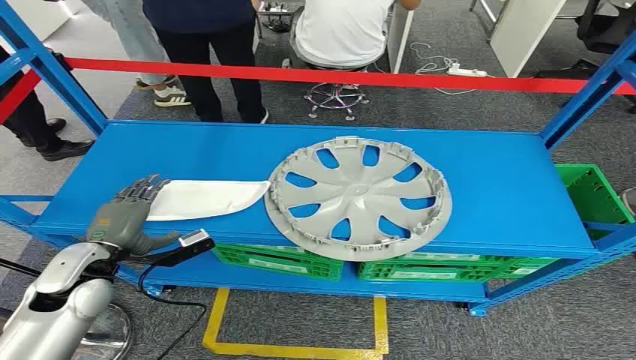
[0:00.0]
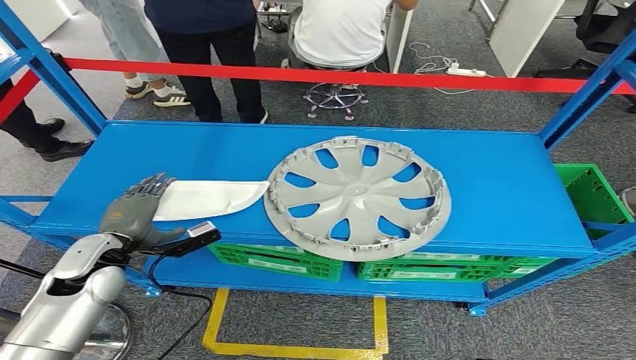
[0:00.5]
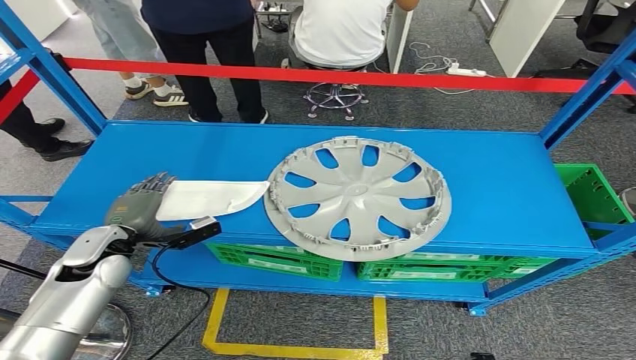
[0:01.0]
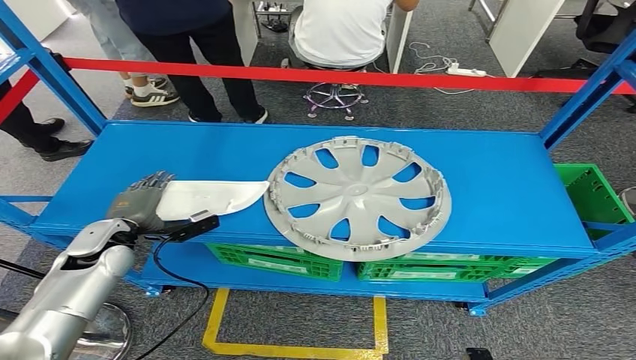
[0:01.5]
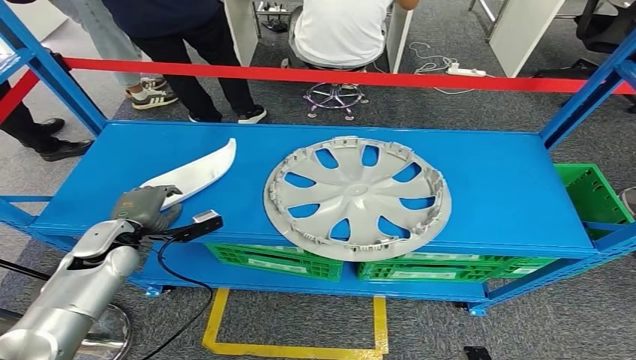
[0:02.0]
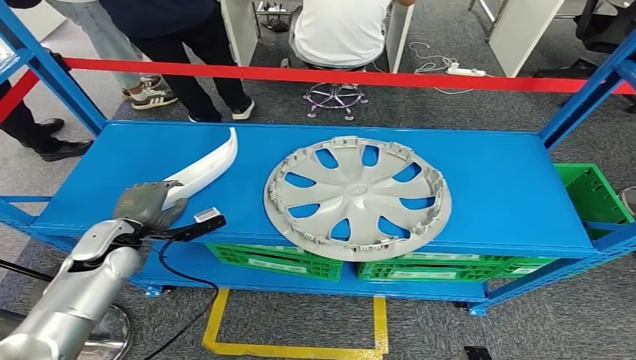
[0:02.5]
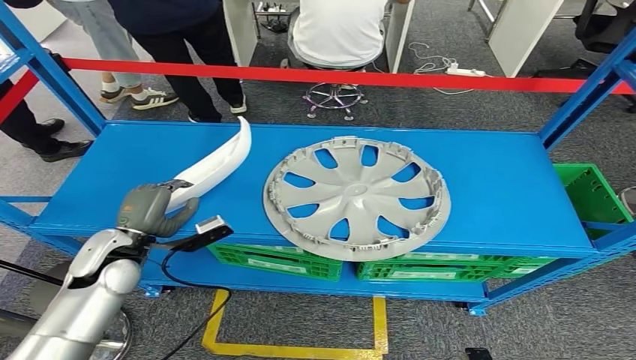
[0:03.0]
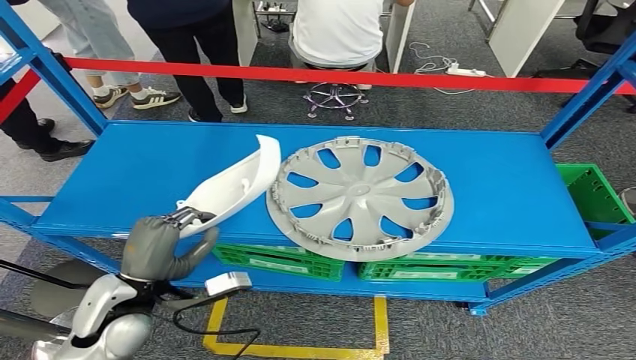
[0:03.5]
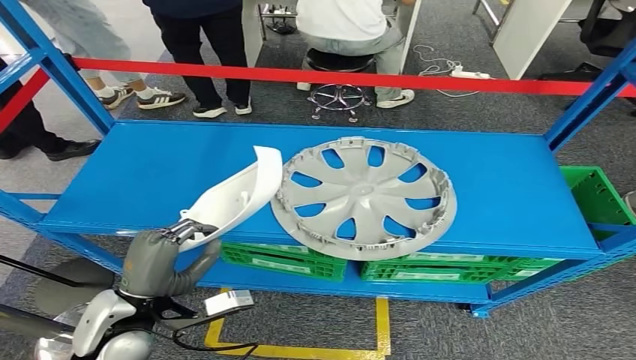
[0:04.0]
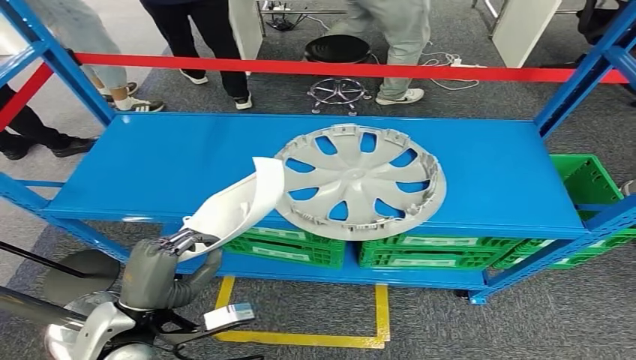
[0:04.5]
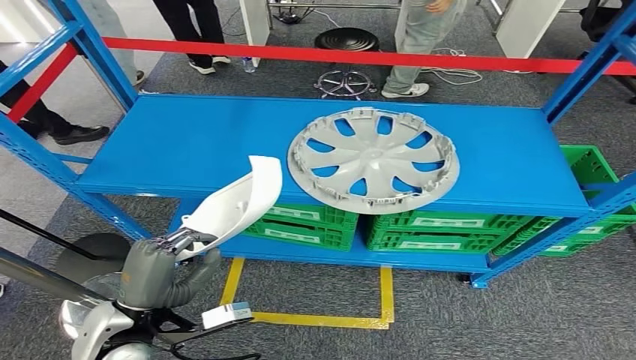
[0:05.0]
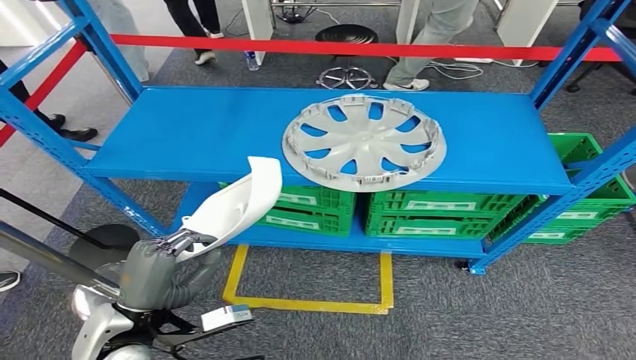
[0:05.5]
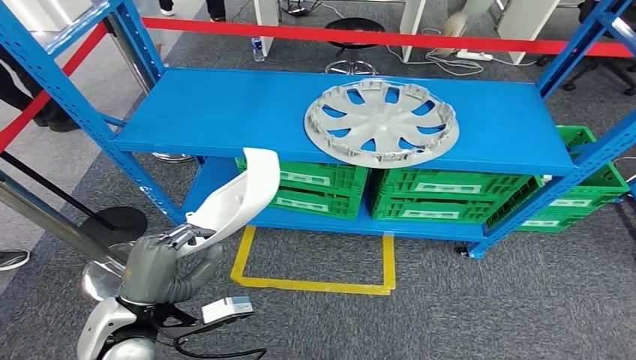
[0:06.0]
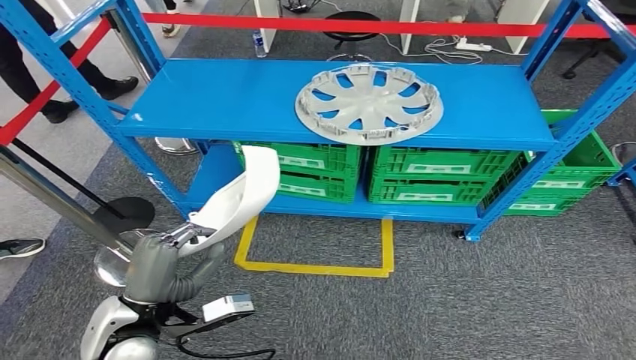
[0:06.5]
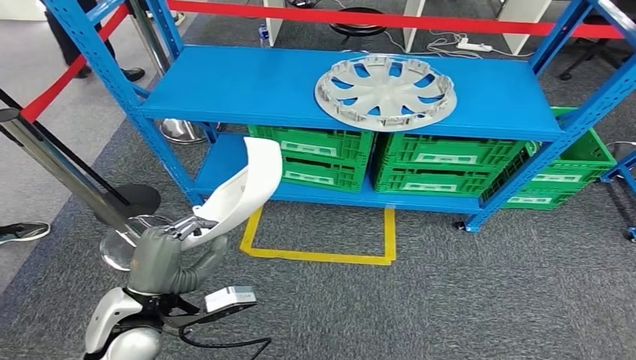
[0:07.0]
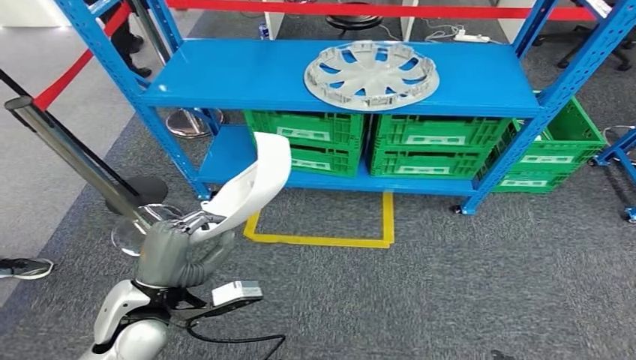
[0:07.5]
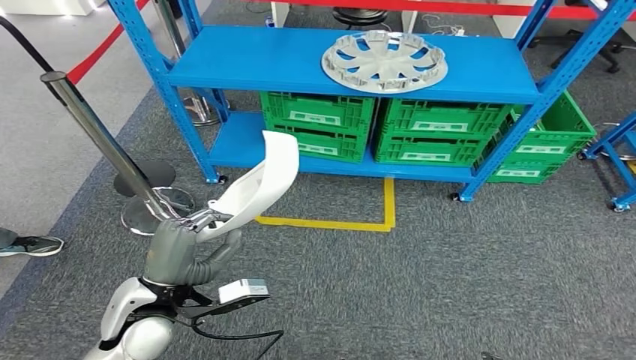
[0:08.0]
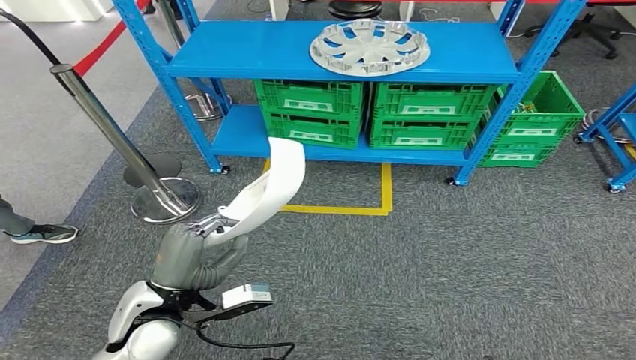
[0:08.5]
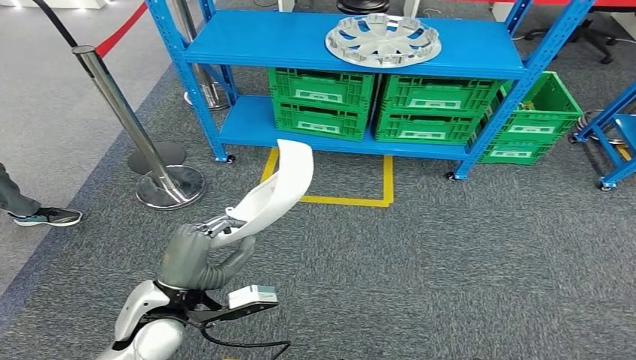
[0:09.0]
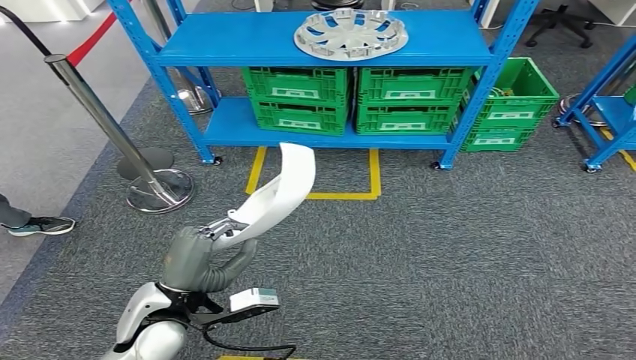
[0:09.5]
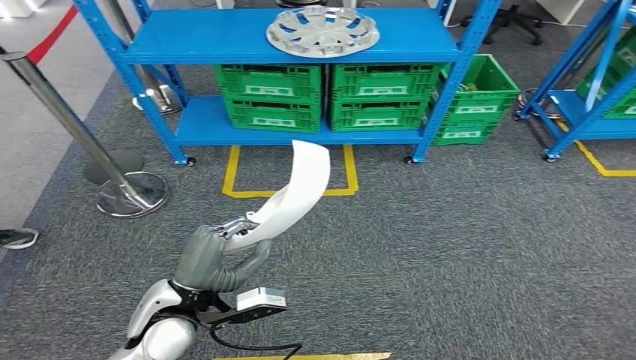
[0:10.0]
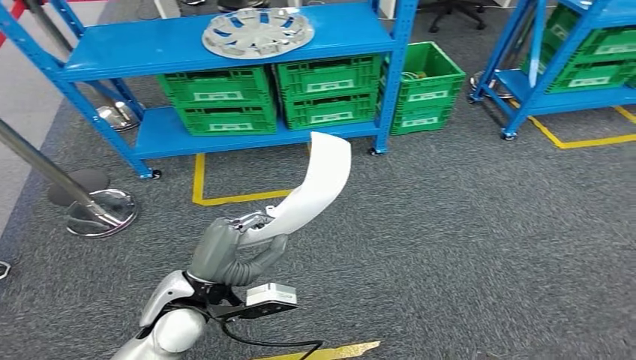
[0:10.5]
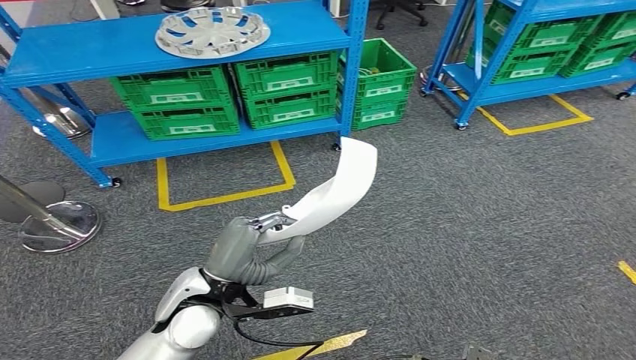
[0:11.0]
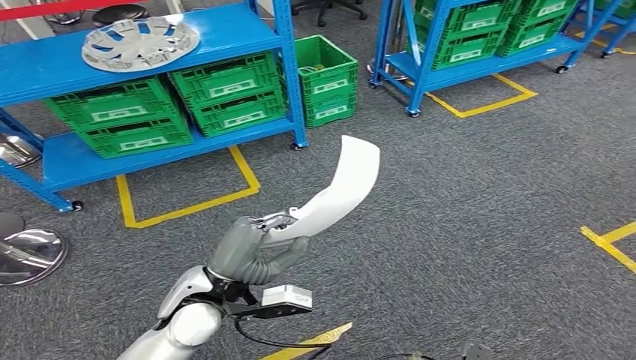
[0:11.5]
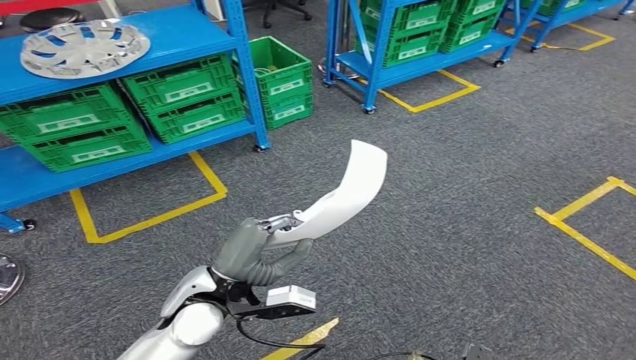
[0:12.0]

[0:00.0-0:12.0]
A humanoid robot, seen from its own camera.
Step, 0:00.0 to 0:07.0: Take small components from the rack.

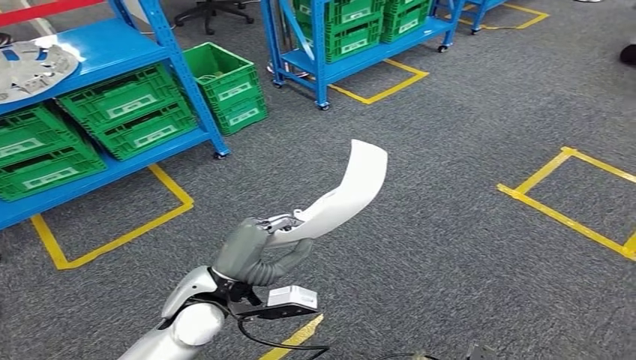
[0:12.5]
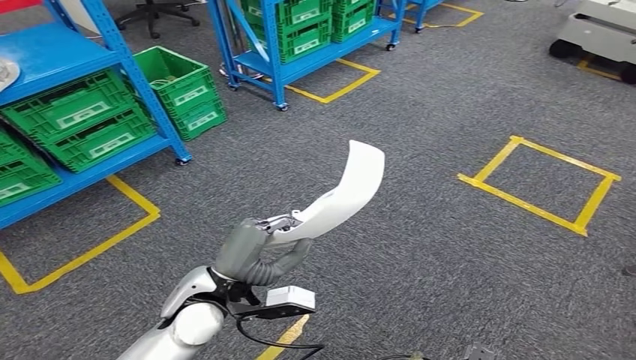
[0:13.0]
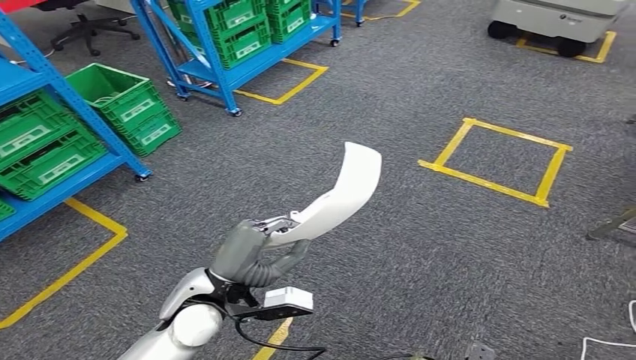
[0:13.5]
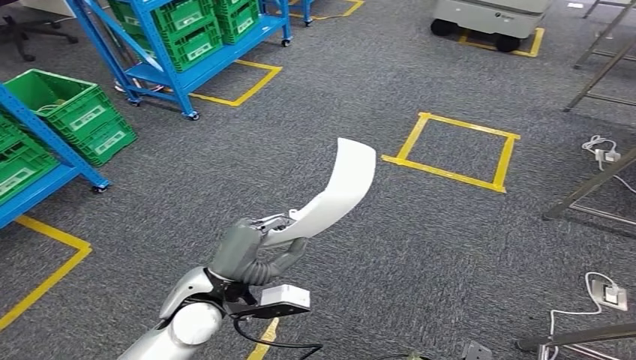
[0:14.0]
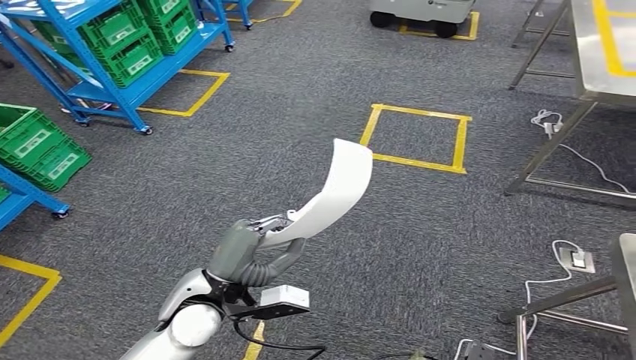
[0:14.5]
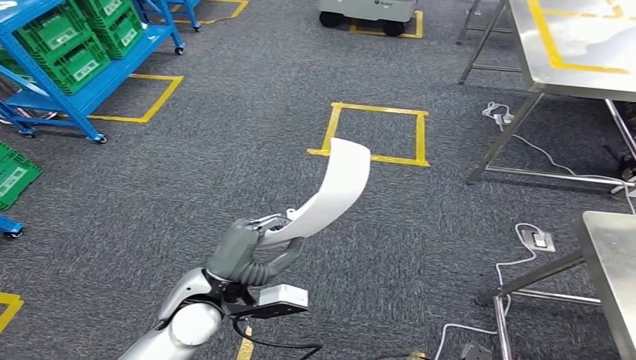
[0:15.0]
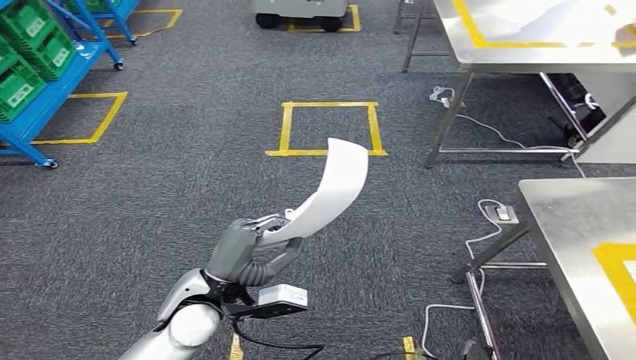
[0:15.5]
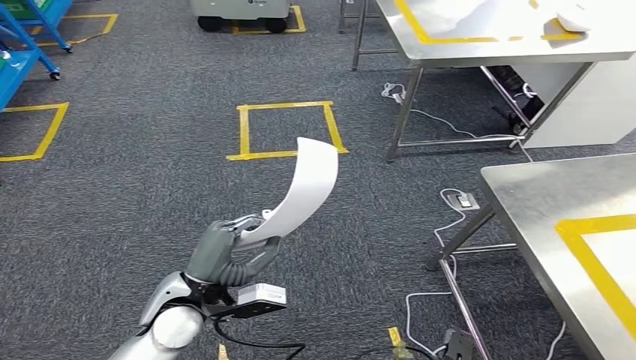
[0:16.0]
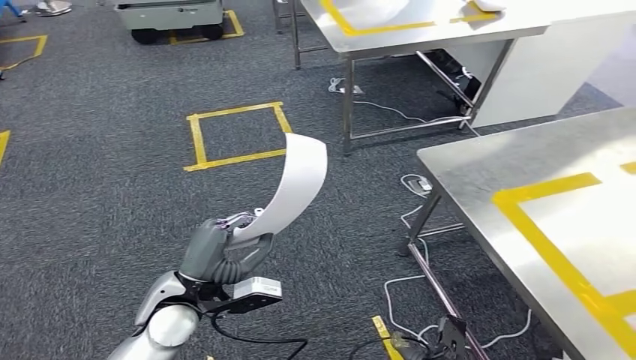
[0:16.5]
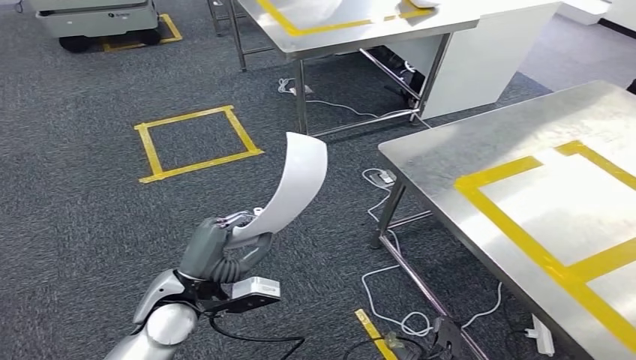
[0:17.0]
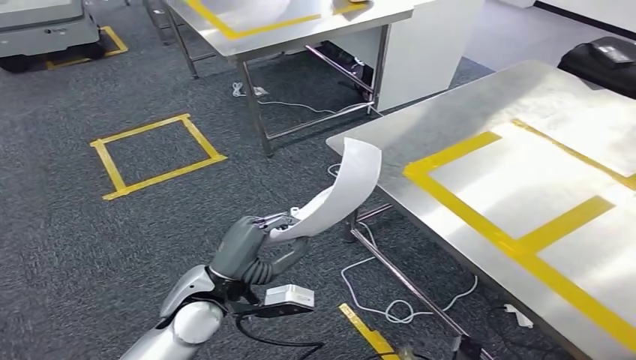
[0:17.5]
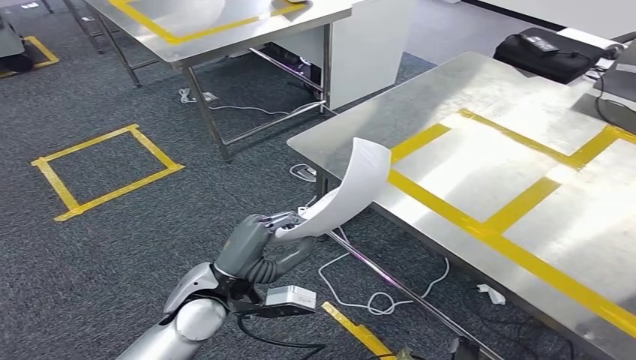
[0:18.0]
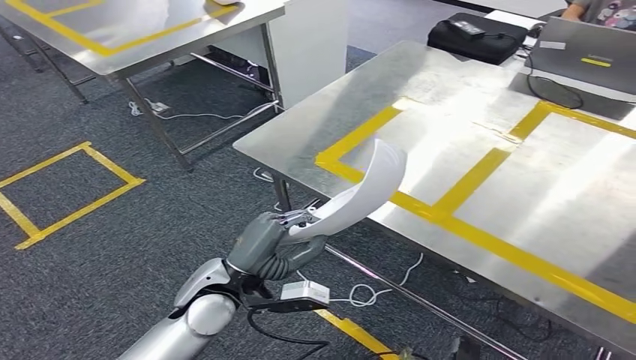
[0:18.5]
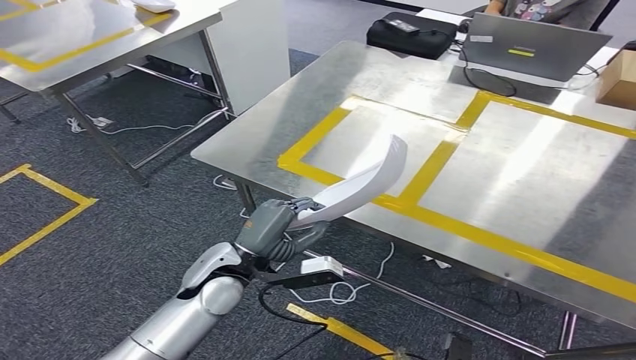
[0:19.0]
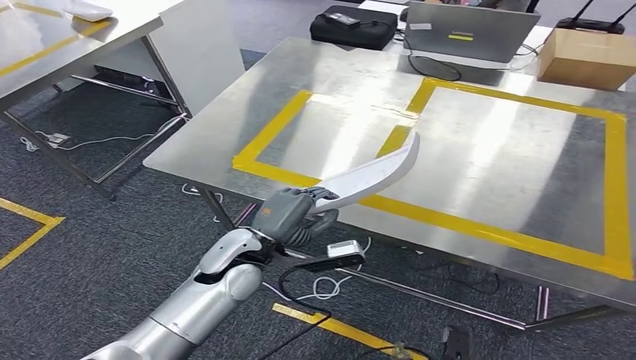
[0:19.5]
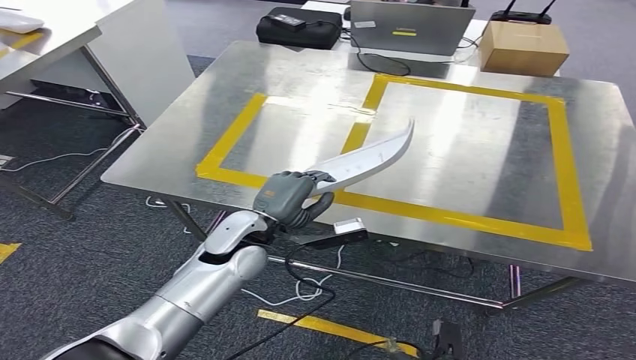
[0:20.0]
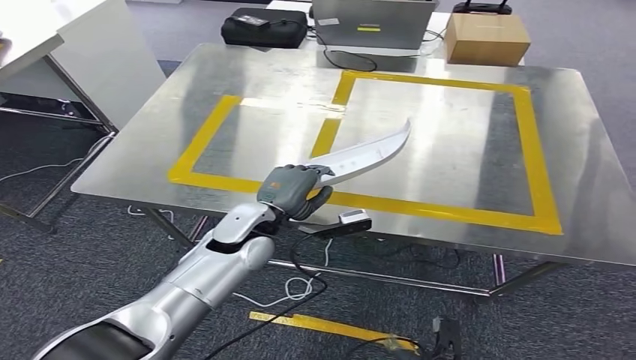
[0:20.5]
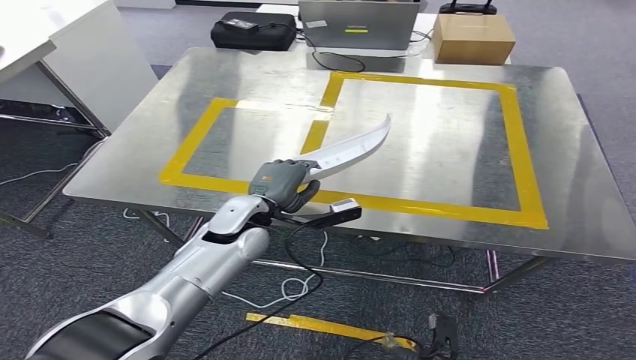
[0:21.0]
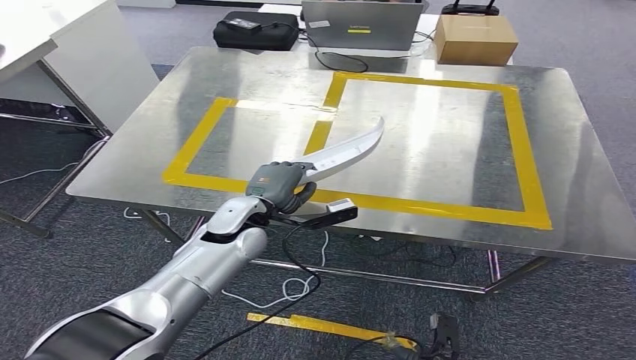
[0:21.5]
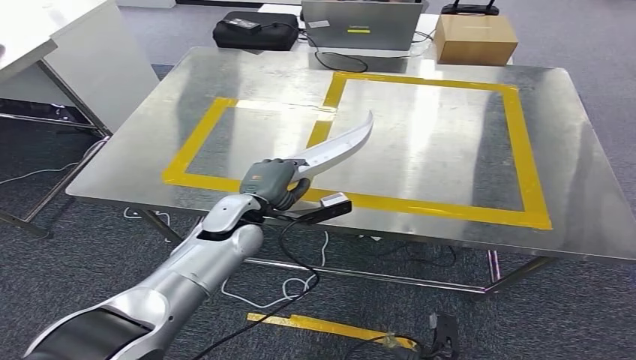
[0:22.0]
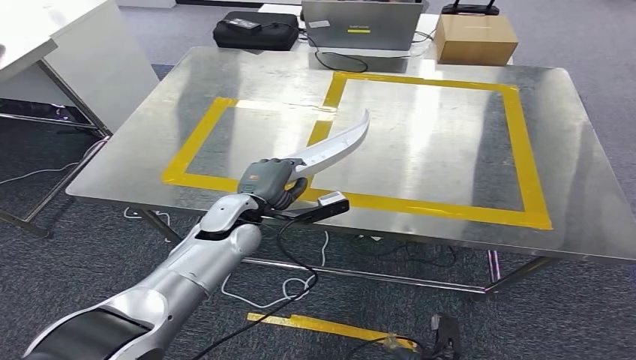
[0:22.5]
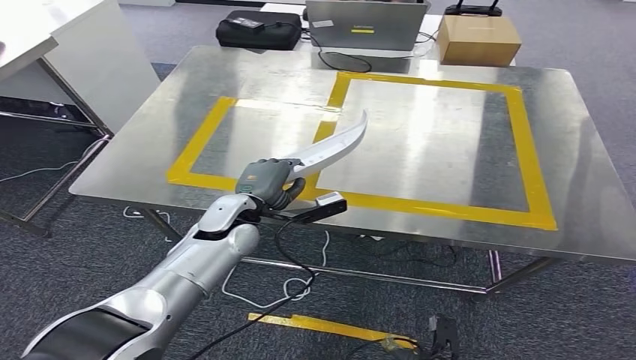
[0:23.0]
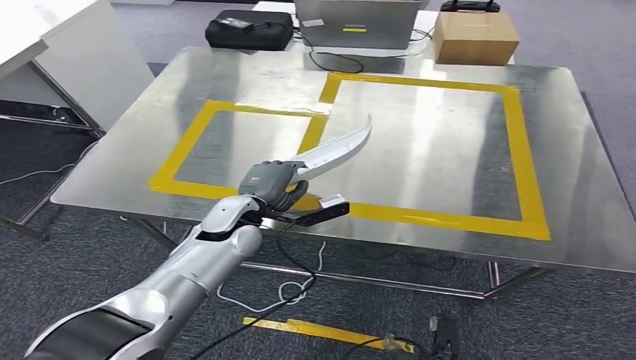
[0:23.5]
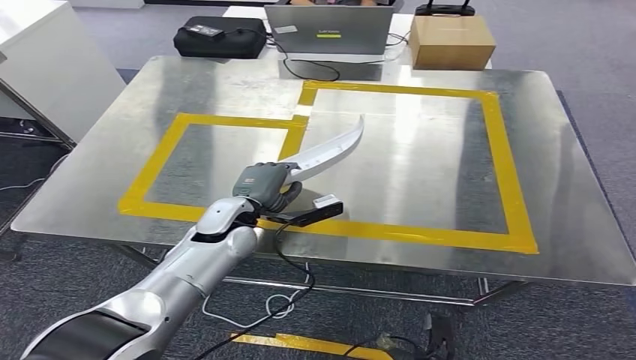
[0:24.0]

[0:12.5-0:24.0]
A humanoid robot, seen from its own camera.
Step, 0:12.5 to 0:18.0: Move the small parts to the workbench.
